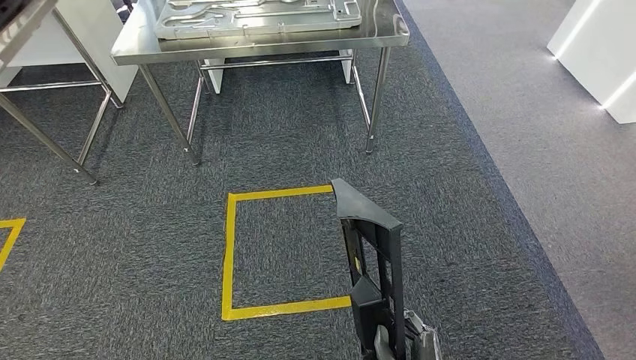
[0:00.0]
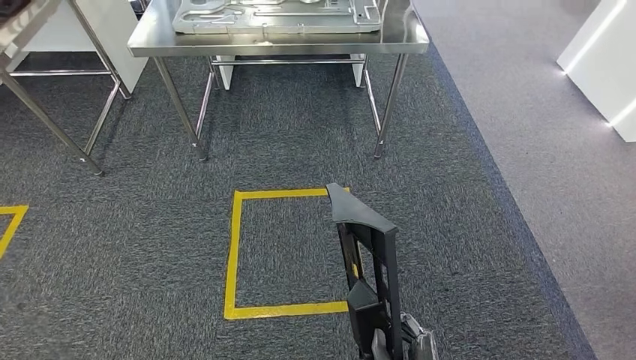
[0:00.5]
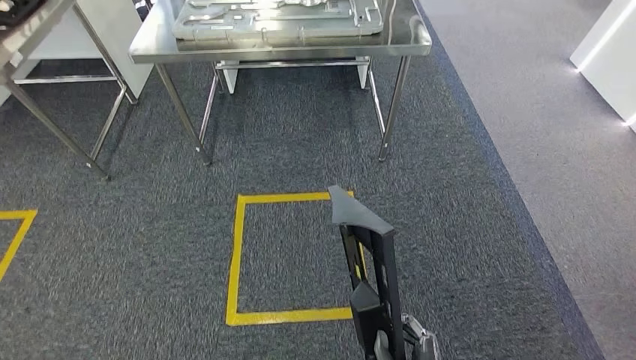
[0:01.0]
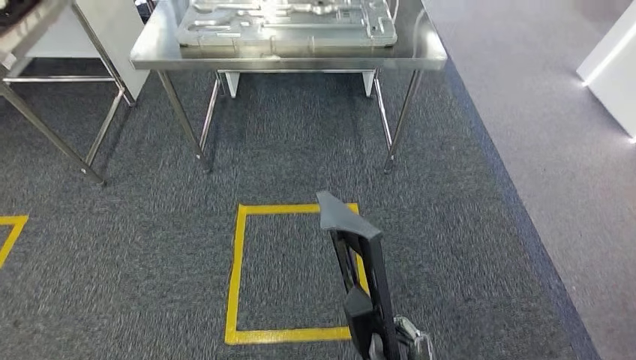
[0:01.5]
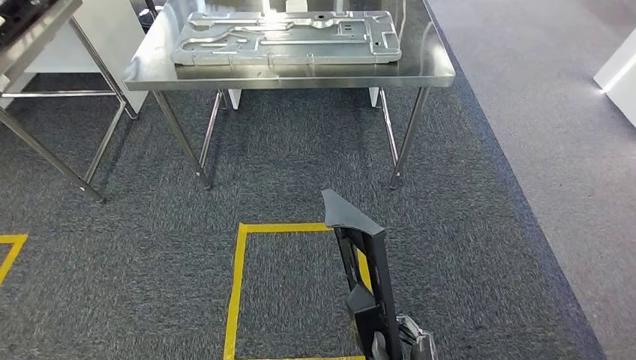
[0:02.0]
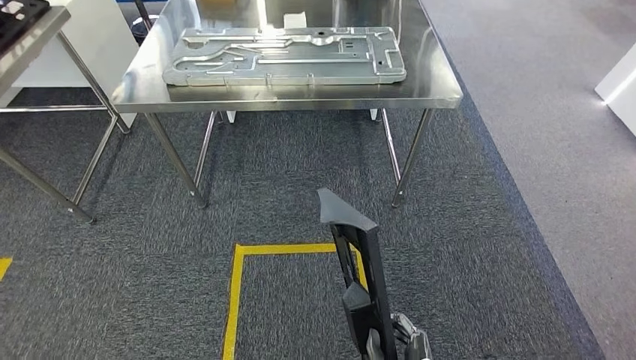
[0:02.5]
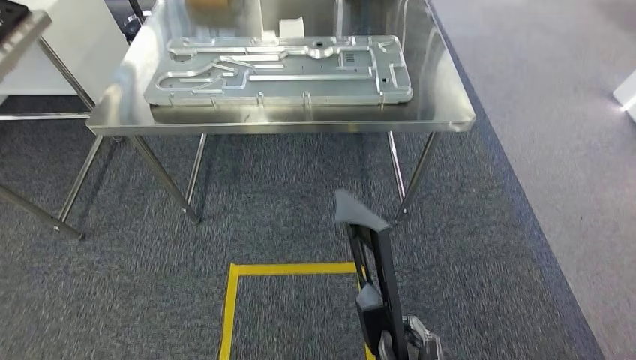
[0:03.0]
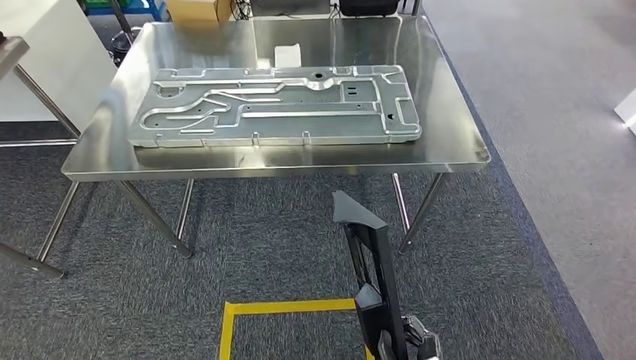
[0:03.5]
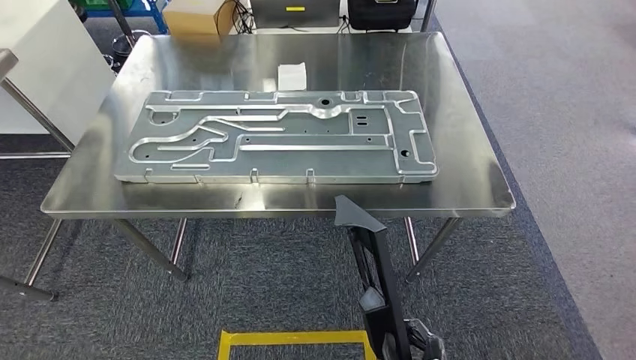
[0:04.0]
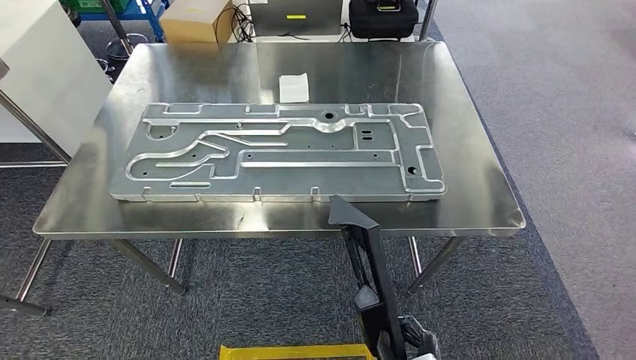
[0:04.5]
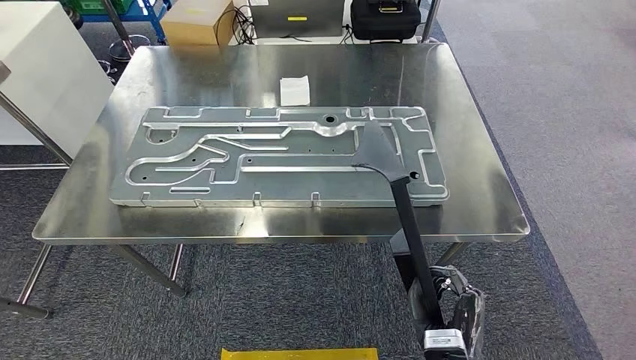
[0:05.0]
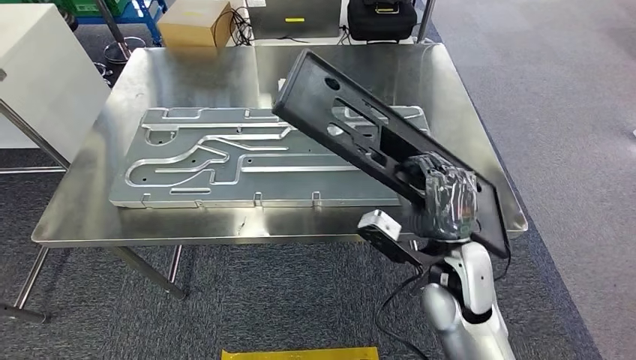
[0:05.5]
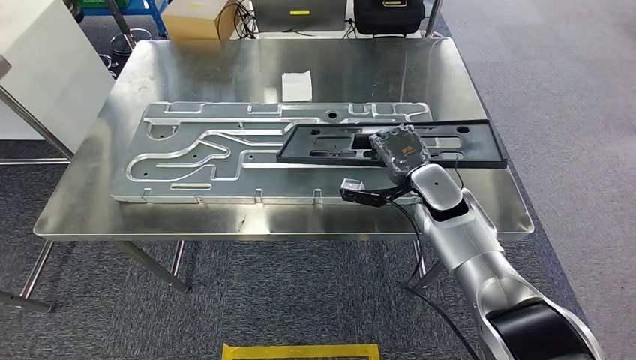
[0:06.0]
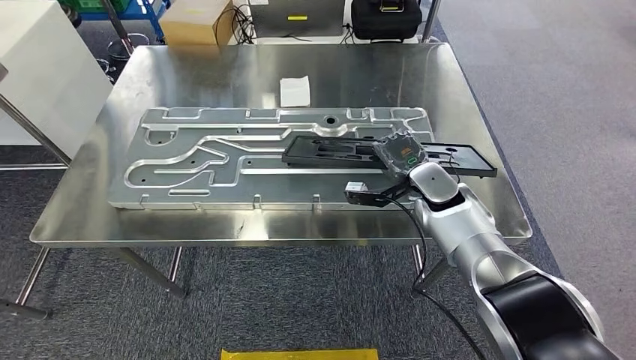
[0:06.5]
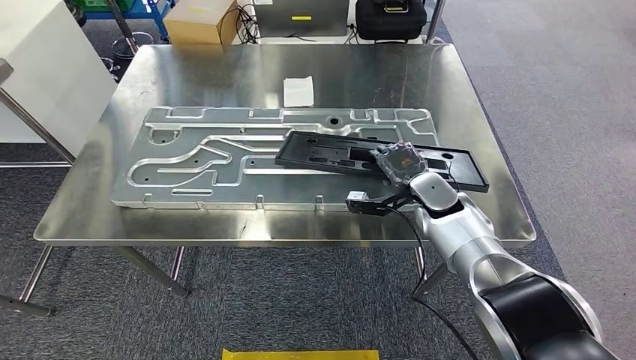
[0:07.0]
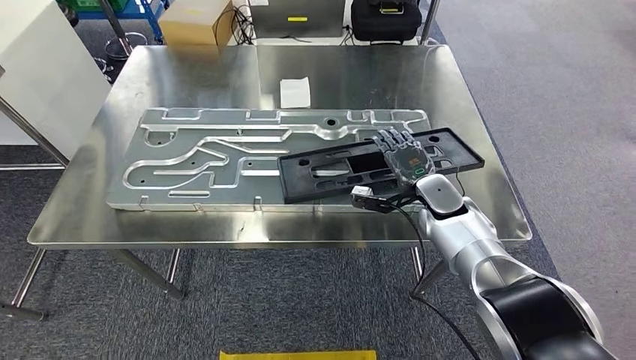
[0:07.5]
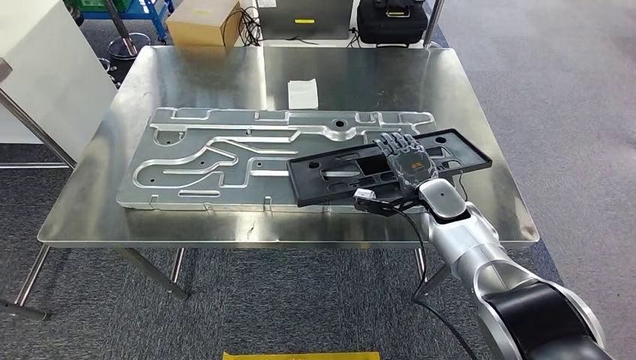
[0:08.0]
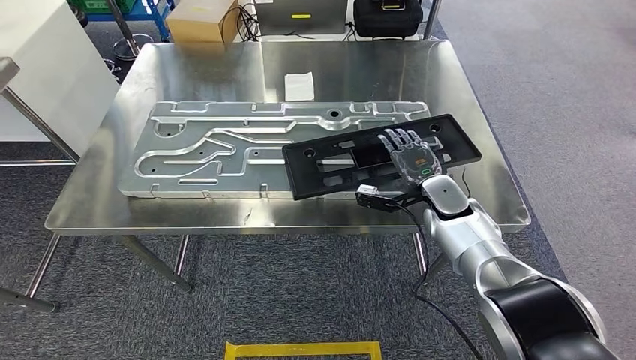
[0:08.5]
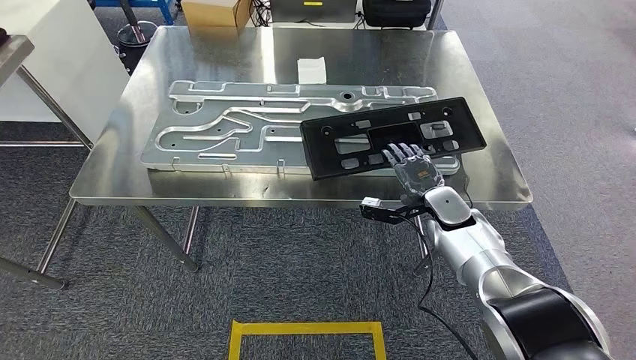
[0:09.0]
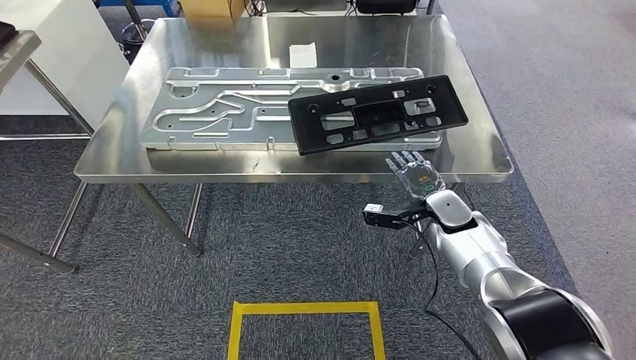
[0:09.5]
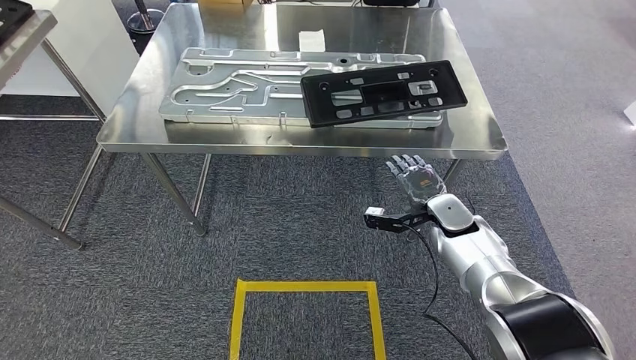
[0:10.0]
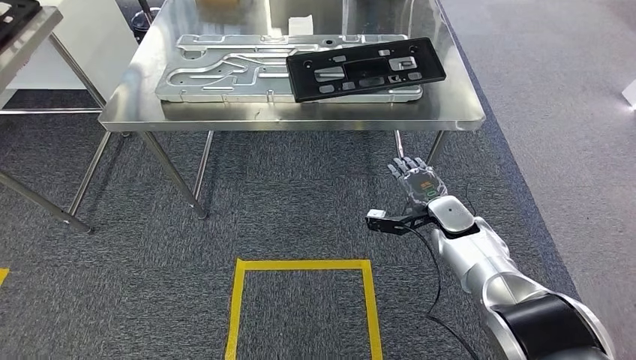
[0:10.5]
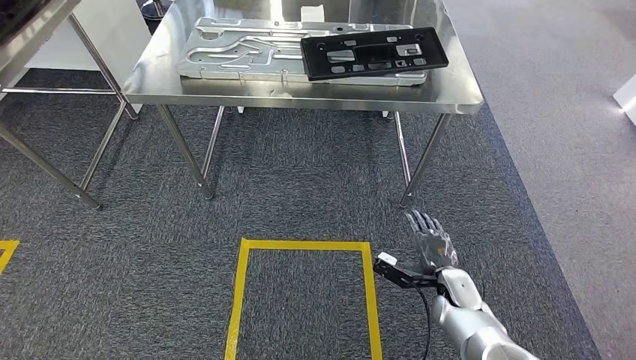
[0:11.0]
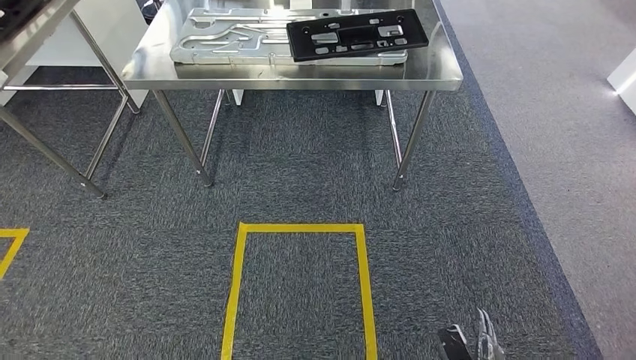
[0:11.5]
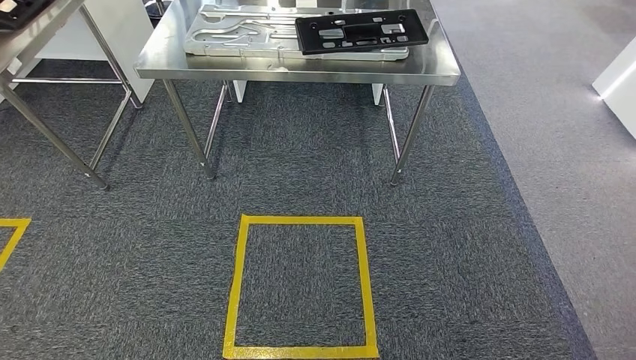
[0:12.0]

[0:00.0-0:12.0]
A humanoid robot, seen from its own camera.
Step, 0:00.0 to 0:04.0: Move the large parts to the workbench.
Step, 0:04.5 to 0:11.5: Insert the large parts into the corresponding slots on the workbench.

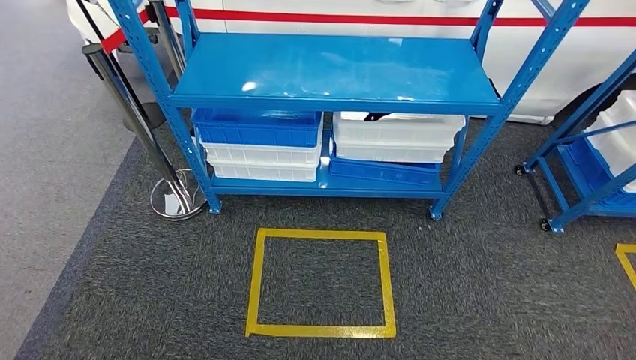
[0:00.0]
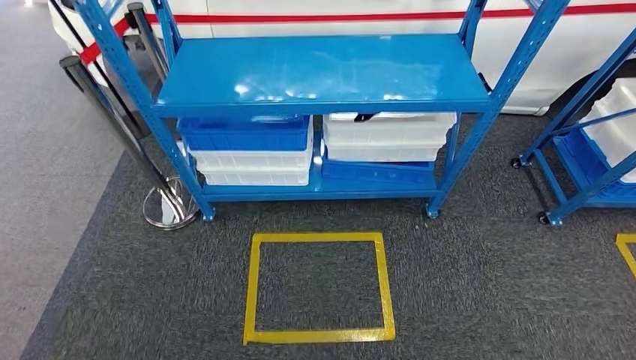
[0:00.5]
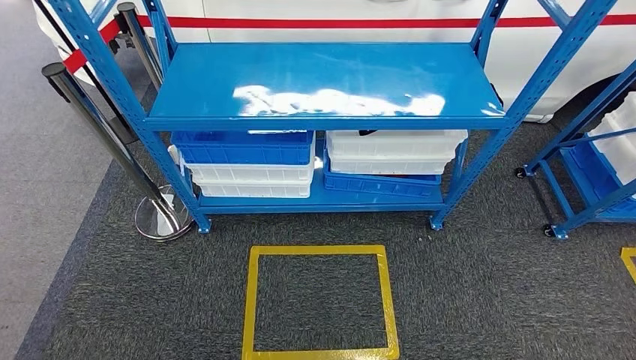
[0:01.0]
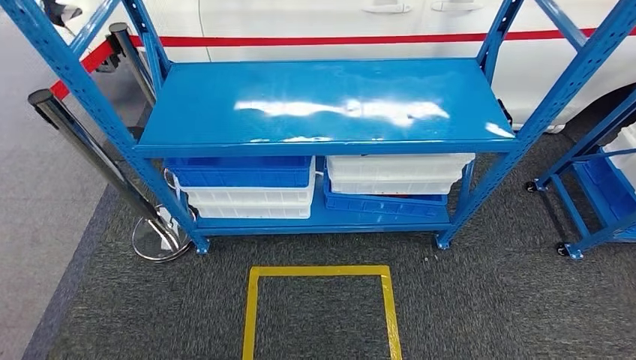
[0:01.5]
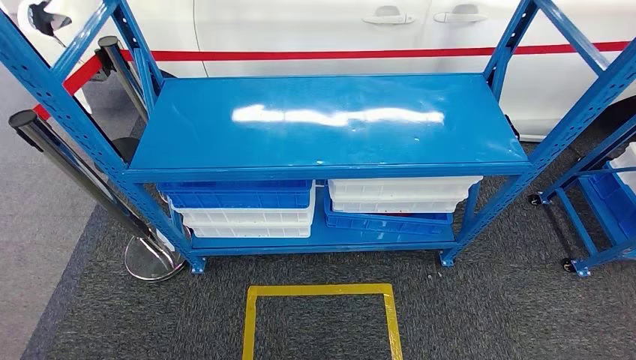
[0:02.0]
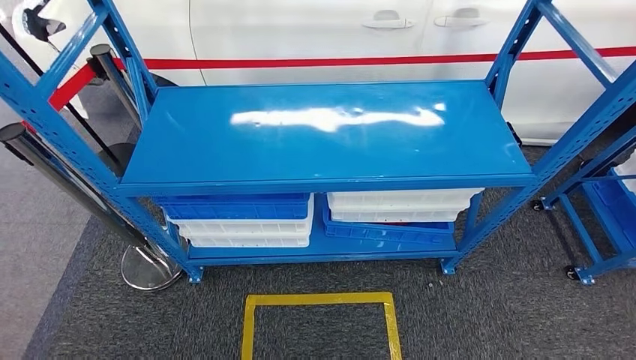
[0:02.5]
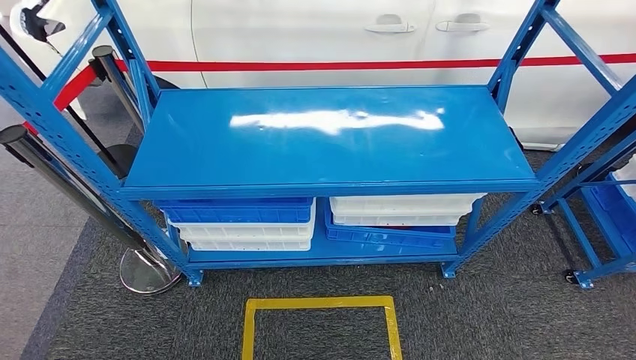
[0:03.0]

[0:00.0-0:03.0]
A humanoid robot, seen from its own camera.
Step, 0:00.0 to 0:03.0: Return to the initial position at the shelf.
